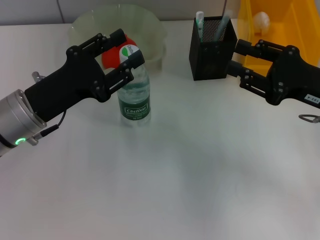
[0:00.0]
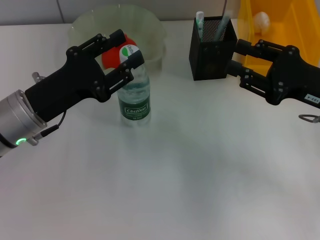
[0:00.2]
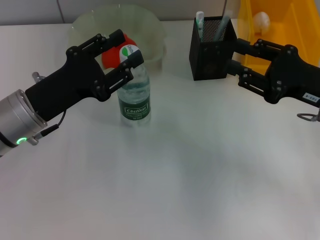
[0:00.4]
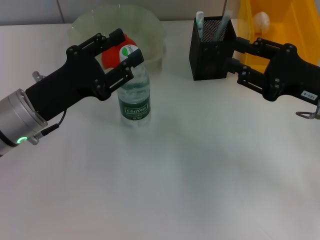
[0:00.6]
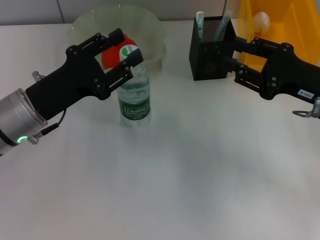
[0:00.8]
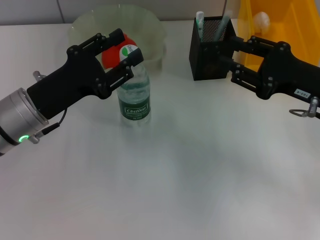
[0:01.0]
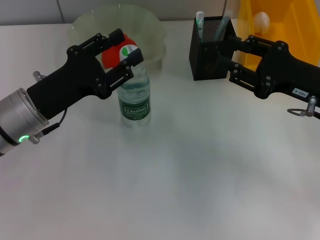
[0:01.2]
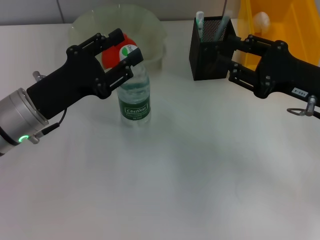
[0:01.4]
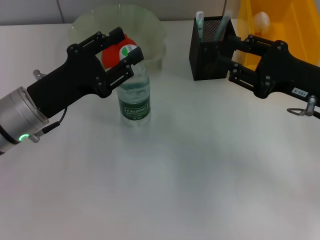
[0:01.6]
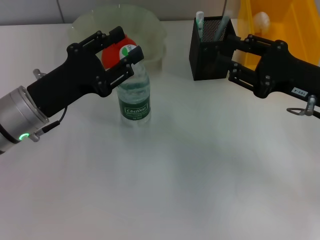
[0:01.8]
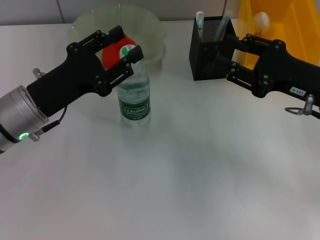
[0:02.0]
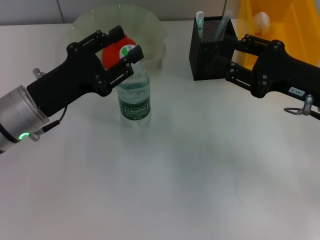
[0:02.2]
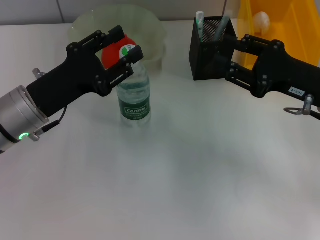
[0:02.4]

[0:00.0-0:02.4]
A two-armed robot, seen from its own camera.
0:00.0 to 0:01.2: The grippers make only small movements.
0:01.2 to 0:02.4: Neither gripper changes place.
